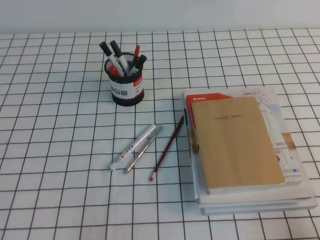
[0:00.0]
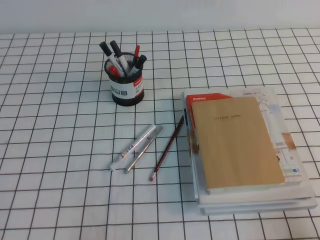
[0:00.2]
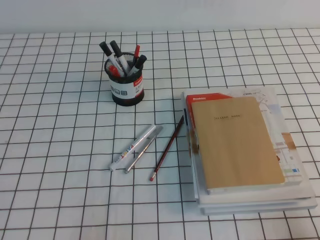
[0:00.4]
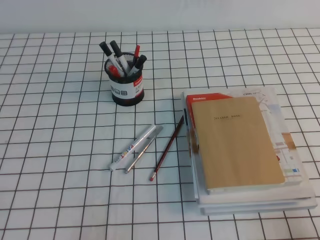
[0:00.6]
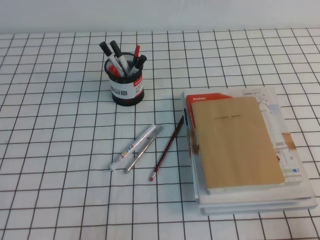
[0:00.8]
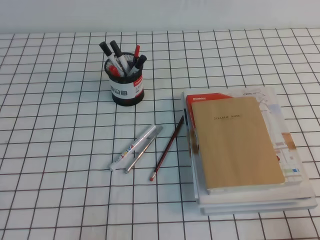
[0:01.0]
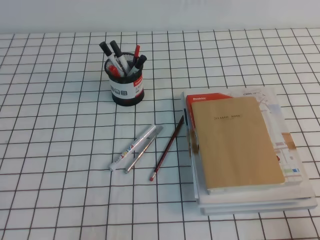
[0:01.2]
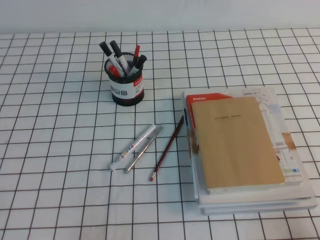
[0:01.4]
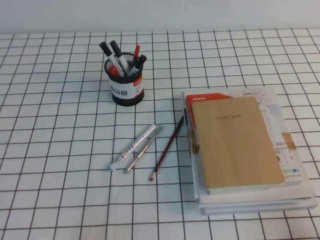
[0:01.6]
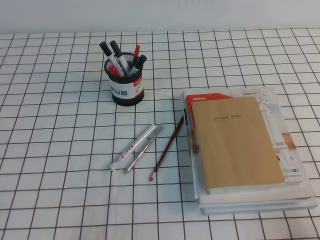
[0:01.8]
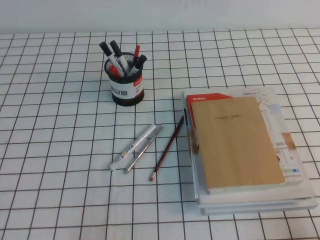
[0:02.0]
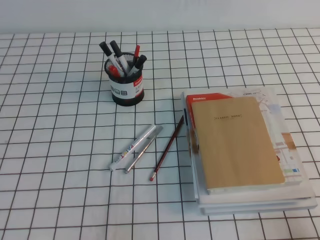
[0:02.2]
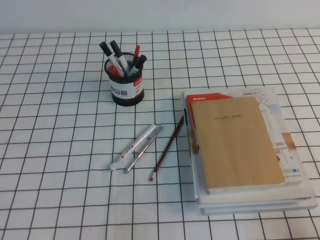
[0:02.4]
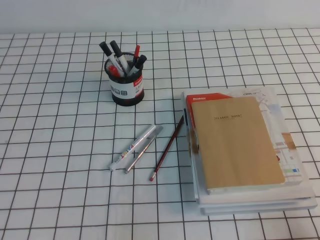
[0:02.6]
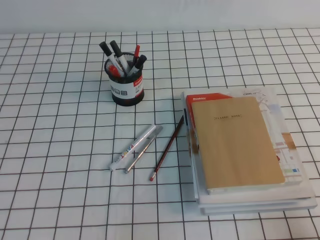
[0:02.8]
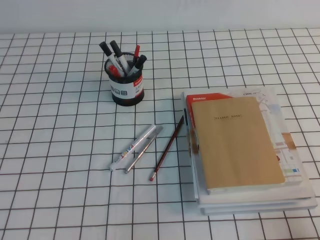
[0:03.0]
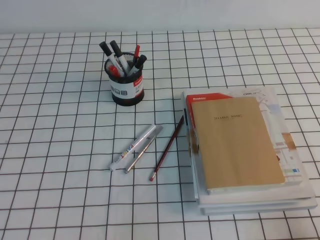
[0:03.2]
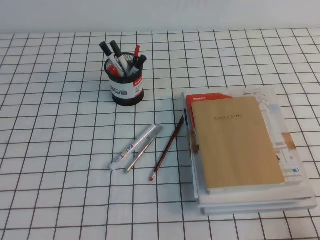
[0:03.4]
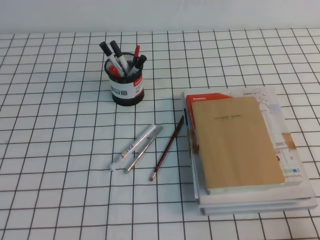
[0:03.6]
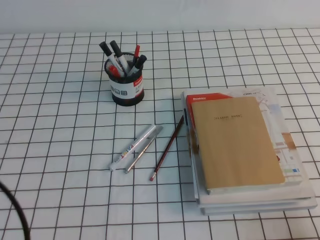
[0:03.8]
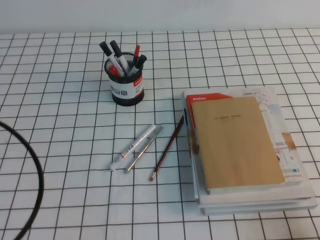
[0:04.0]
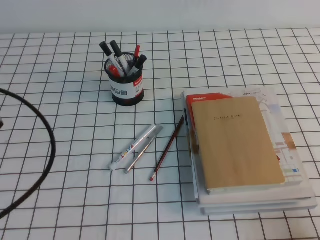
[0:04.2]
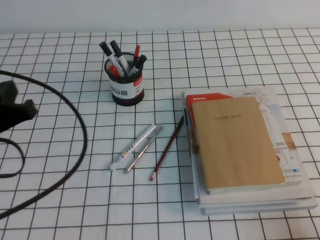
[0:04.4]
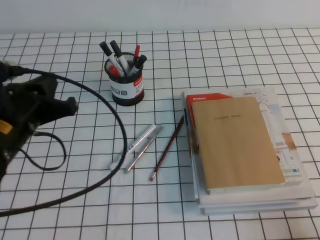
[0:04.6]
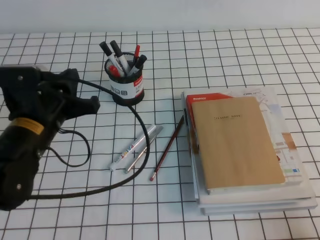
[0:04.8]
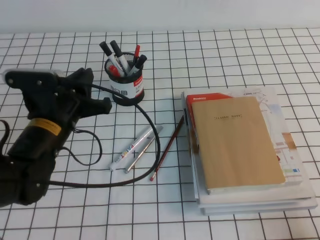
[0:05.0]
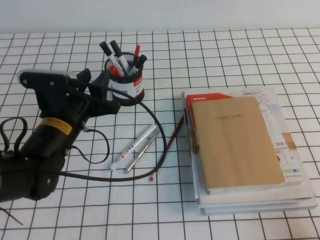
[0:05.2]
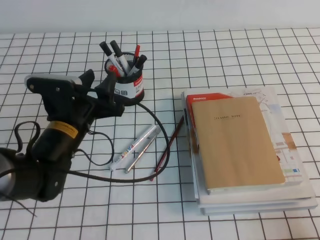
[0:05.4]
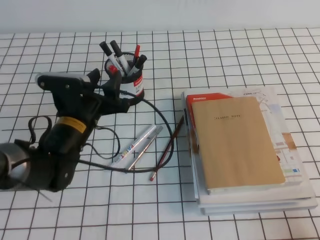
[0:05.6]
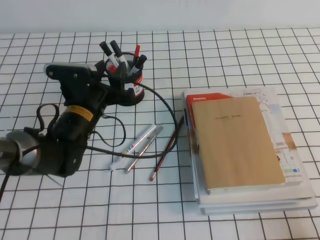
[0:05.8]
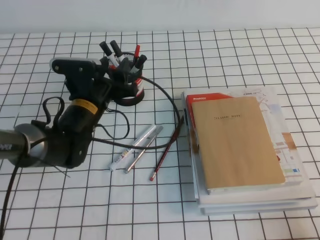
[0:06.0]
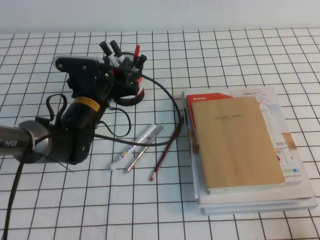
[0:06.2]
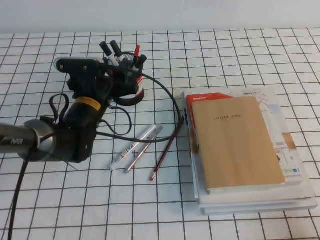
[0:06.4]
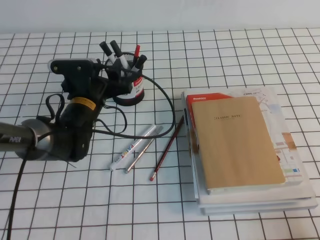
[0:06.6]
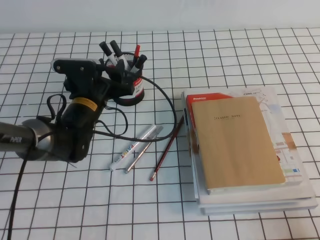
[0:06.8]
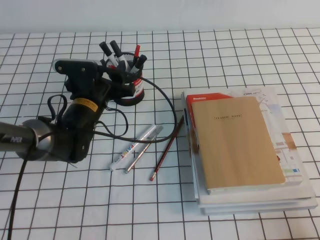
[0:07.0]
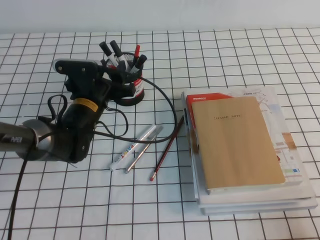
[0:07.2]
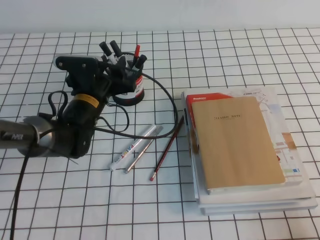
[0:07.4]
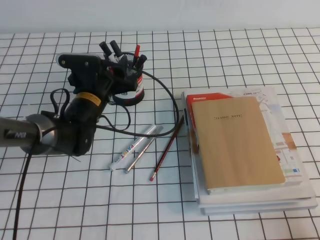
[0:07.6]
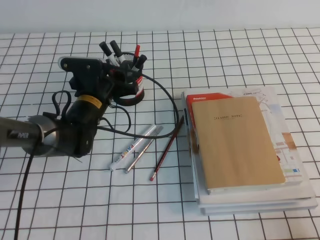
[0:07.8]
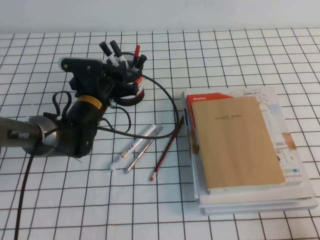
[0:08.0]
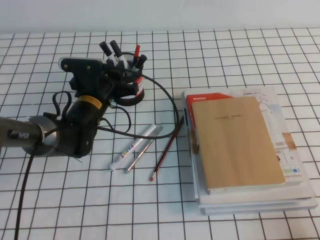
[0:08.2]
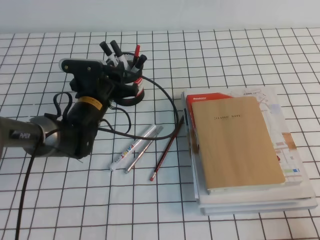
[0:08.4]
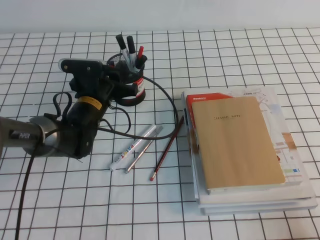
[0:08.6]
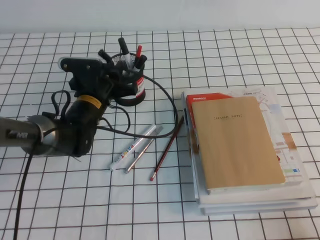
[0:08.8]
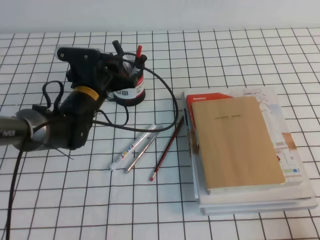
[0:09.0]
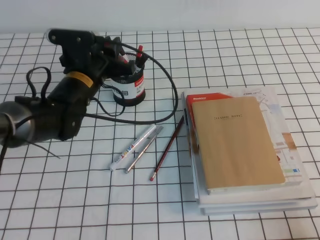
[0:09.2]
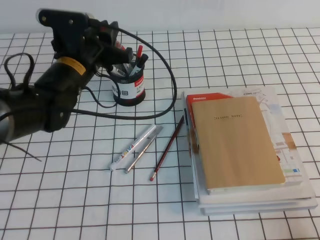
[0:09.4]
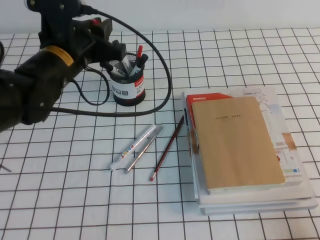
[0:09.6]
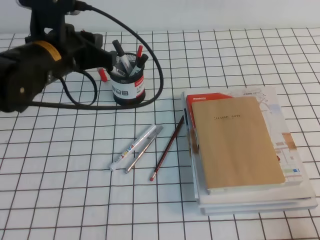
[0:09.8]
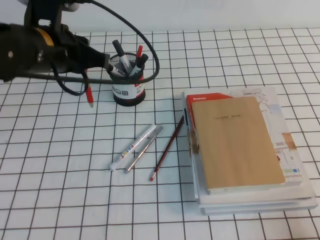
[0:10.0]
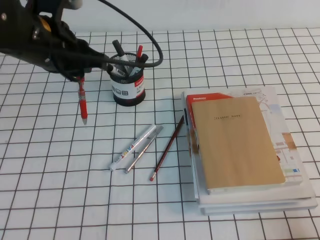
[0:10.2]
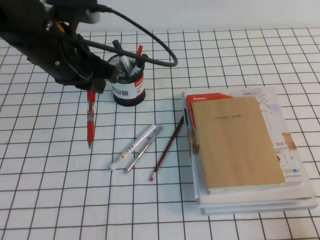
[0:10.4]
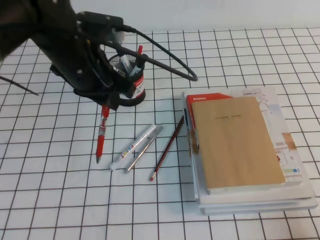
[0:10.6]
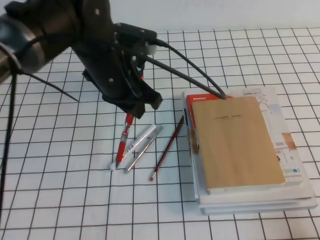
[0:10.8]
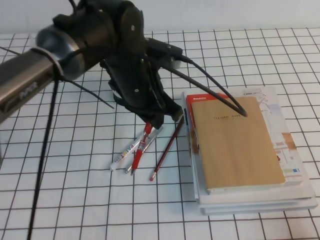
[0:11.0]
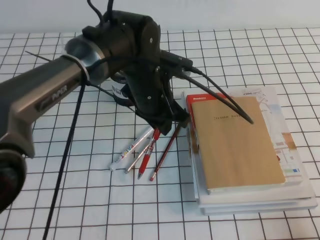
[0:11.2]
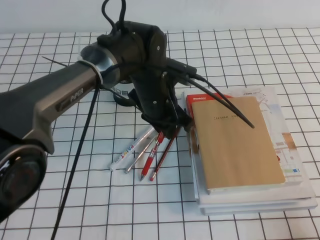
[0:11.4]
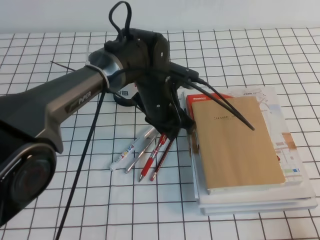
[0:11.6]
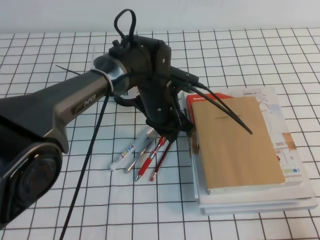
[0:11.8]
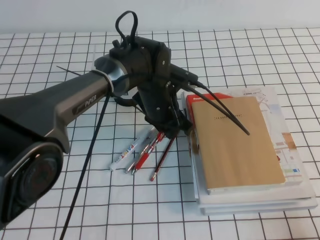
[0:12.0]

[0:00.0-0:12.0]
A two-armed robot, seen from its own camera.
0:00.0 to 0:01.6: Both grippers stay about where they are.
0:03.0 to 0:04.4: The left gripper moves forward and upward, some 15 cm.
0:04.4 to 0:06.0: The left gripper is displaced forward, to the right and downward by some 25 cm, and opens its fingers.
0:06.0 to 0:07.6: The grippers move only a little.
0:07.6 to 0:09.0: The left gripper closes its fingers.
0:09.0 to 0:10.4: The left gripper is displaced upward and backward by some 15 cm.
0:10.4 to 0:12.0: The left gripper shifts roughly 20 cm downward and to the right.

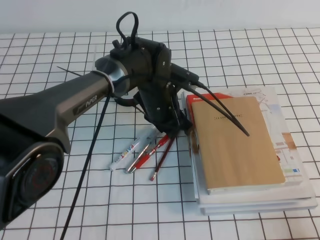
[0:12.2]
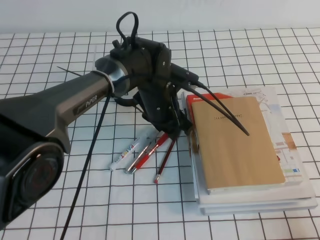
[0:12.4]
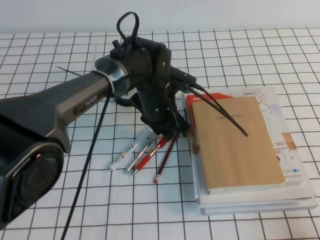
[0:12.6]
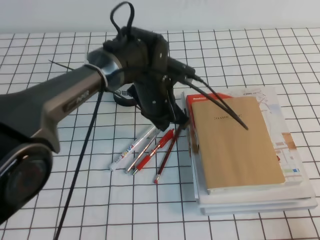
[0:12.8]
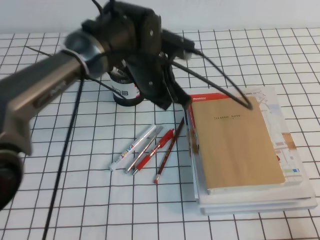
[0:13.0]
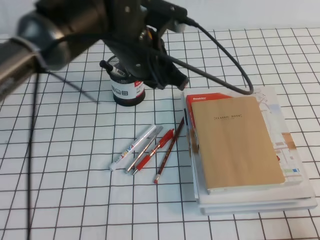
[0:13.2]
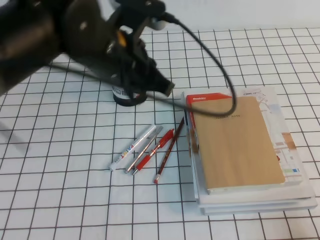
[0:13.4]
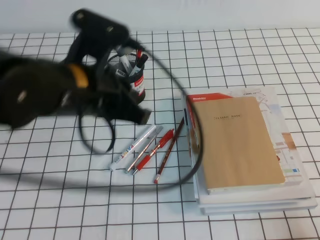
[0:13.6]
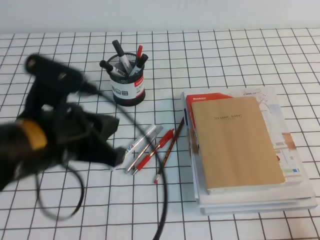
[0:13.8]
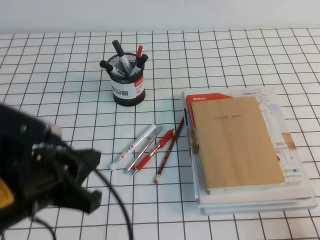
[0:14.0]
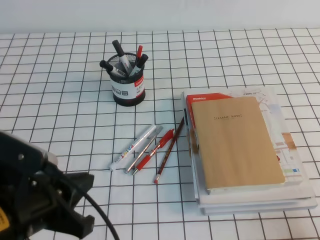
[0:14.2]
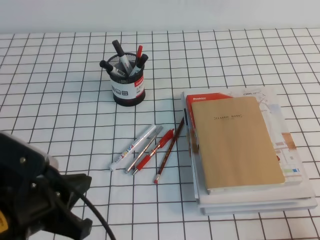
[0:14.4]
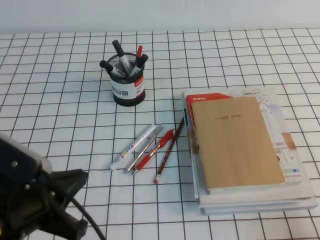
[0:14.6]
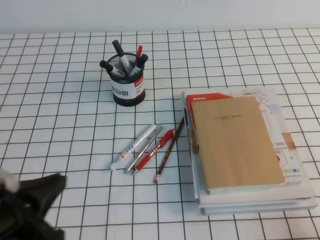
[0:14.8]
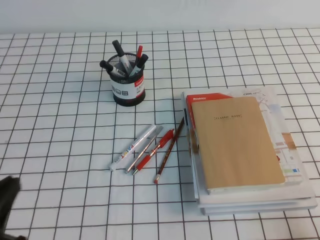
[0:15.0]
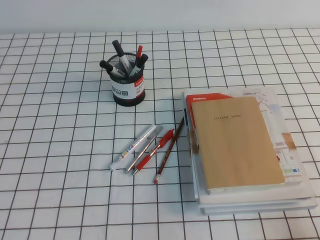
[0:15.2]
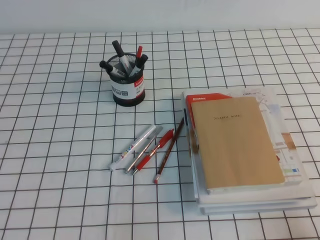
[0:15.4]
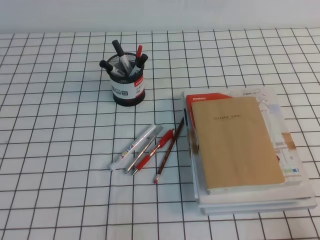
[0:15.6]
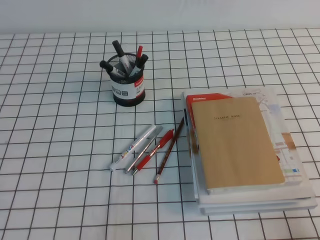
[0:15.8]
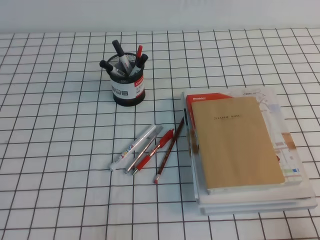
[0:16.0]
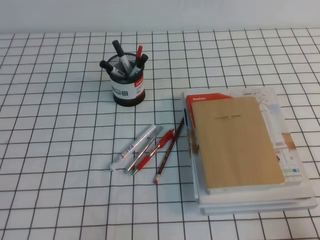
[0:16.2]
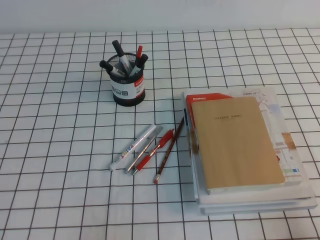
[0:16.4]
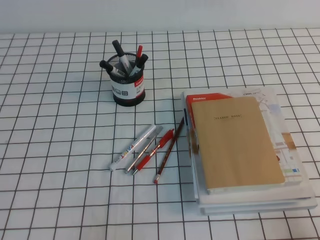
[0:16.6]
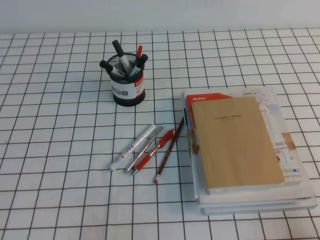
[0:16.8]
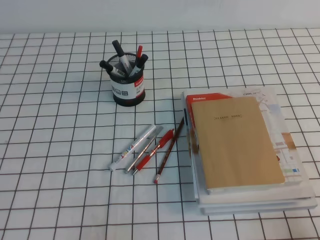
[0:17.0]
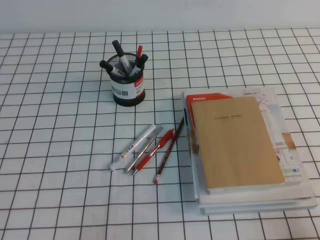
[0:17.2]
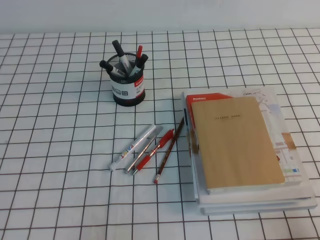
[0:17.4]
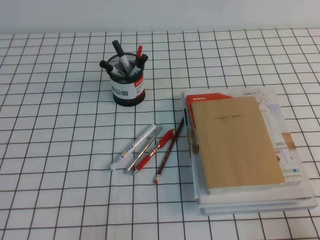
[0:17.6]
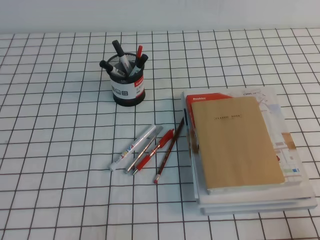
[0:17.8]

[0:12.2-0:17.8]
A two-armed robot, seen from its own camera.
Step, 0:12.2 to 0:17.8: Pick up the pen from the pen holder.
0:12.2 to 0:13.6: The left gripper shifts approximately 20 cm upward, backward and to the left, and closes its fingers.
0:13.6 to 0:15.0: The left gripper travels backward, to the left and downward by some 25 cm.
0:15.0 to 0:16.4: The left gripper is displaced downward by about 10 cm.
0:16.4 to 0:17.8: Both grippers stay put.

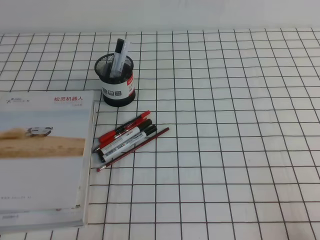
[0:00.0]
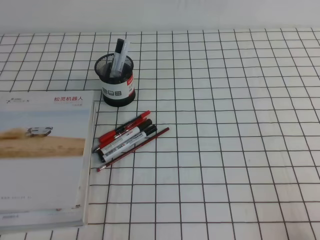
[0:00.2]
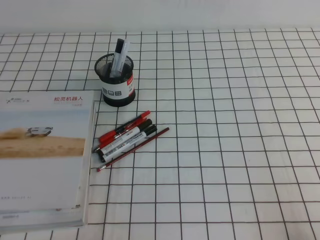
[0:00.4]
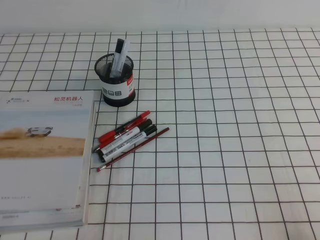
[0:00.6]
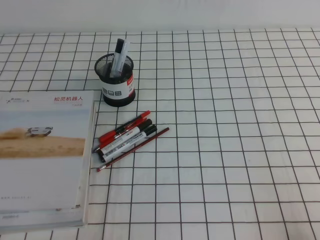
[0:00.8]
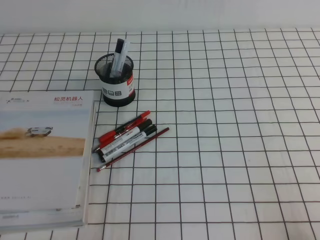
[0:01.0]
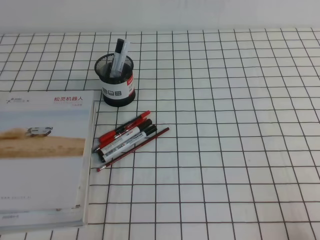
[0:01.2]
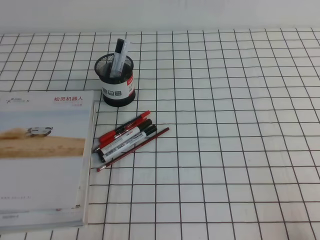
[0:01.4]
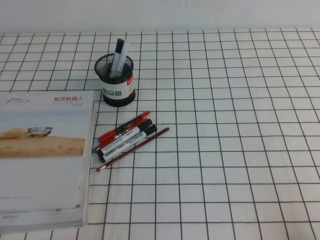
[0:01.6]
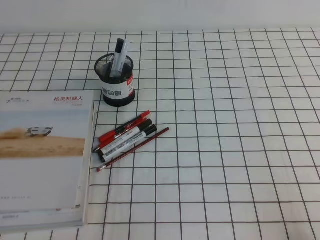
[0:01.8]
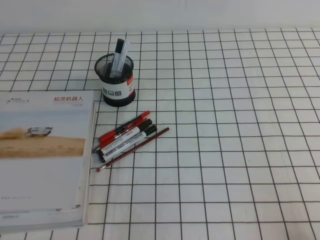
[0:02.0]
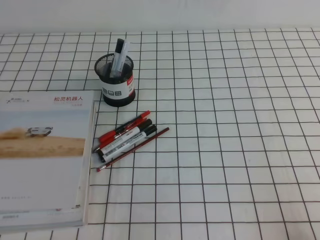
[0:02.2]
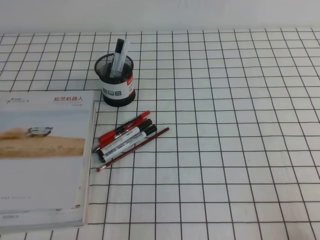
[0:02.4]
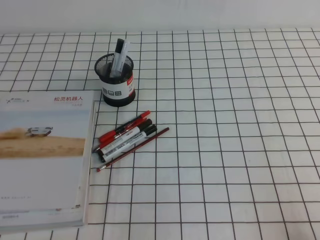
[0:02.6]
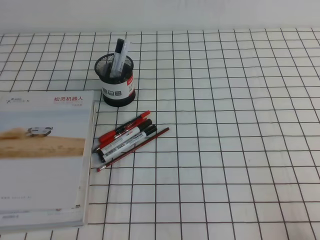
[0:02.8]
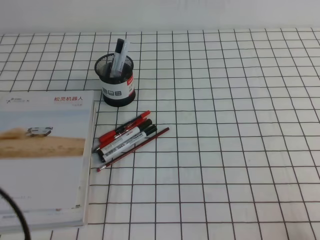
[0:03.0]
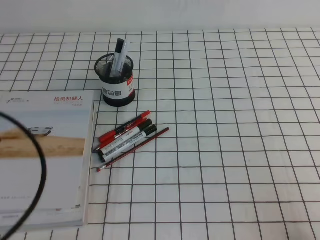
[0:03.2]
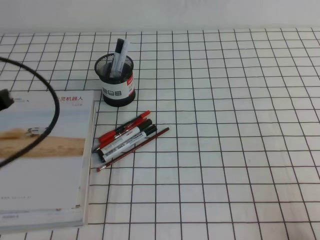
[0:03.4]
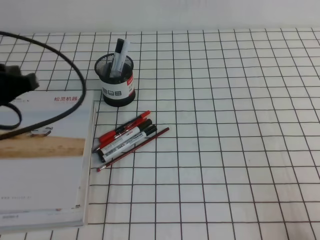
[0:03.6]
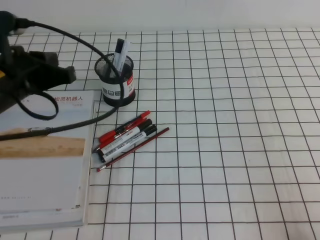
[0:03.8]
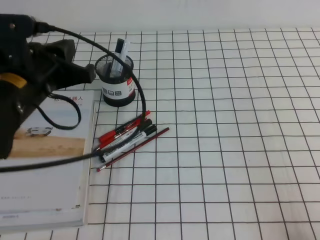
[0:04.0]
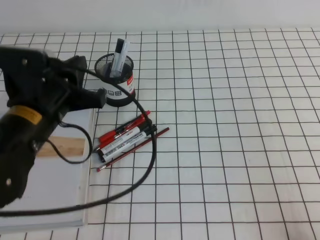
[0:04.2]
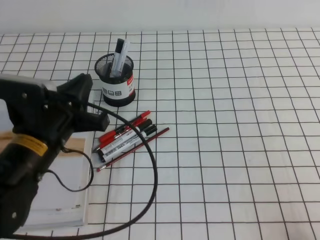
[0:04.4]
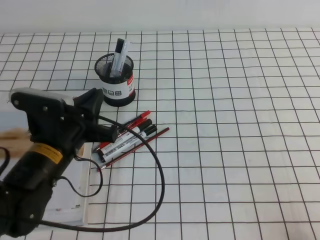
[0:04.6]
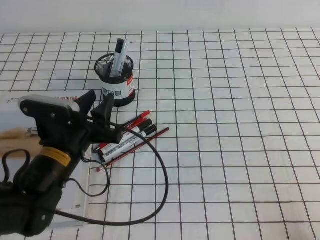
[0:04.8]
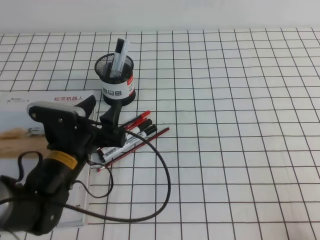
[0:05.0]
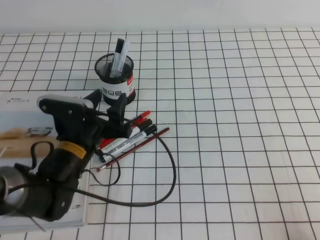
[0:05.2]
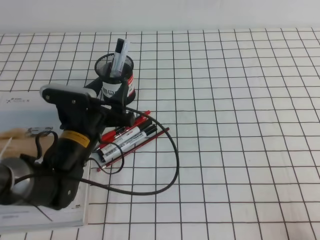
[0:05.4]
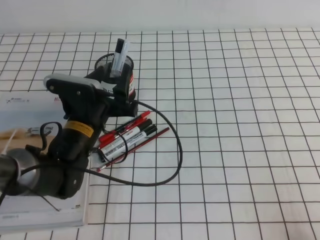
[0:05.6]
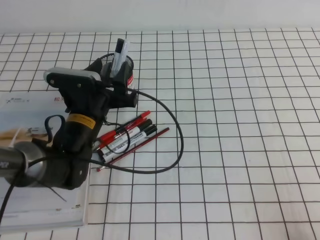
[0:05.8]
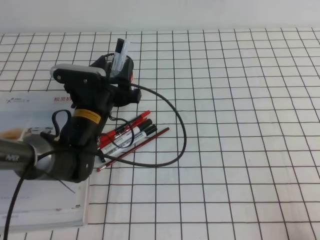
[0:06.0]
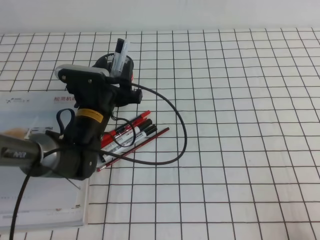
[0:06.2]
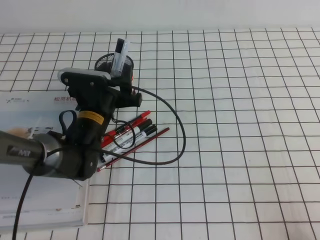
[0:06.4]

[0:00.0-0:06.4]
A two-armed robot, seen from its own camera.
0:00.0 to 0:01.6: Both grippers stay put.
0:01.6 to 0:03.2: The left gripper is displaced upward and forward by some 15 cm.
0:03.2 to 0:04.8: The left gripper heads forward, to the right and downward, covering about 20 cm, and opens.
0:04.8 to 0:06.4: The left gripper moves forward, some 10 cm, and opens its fingers.
